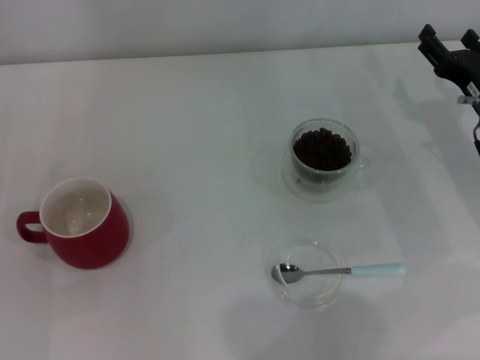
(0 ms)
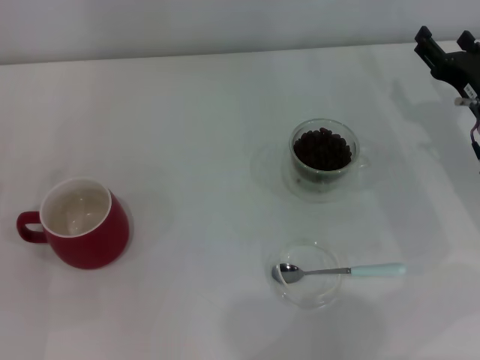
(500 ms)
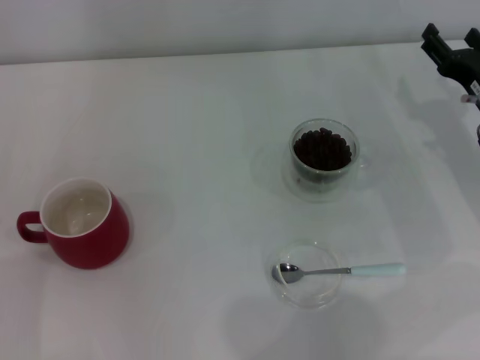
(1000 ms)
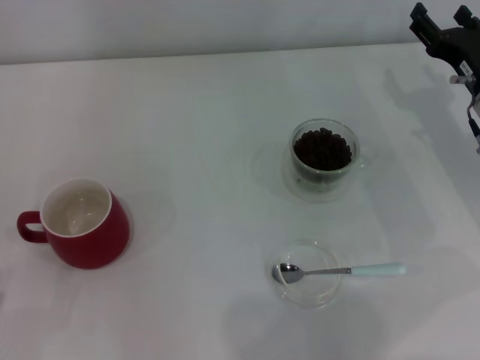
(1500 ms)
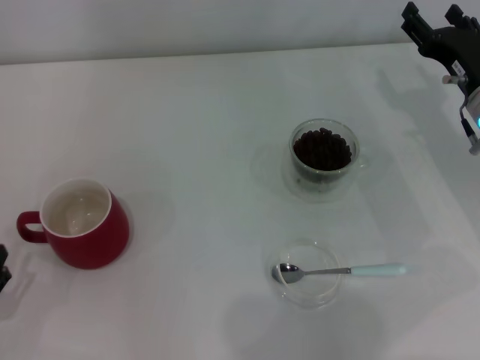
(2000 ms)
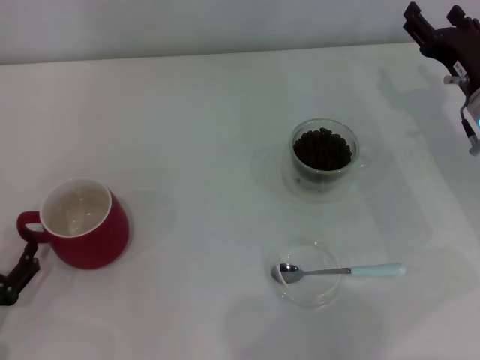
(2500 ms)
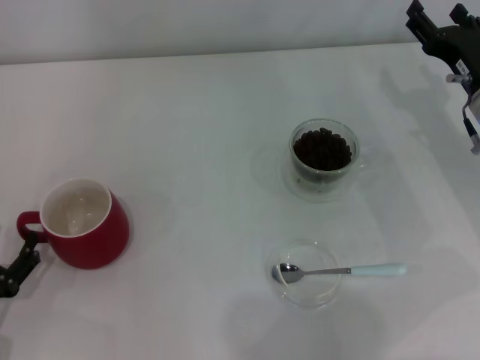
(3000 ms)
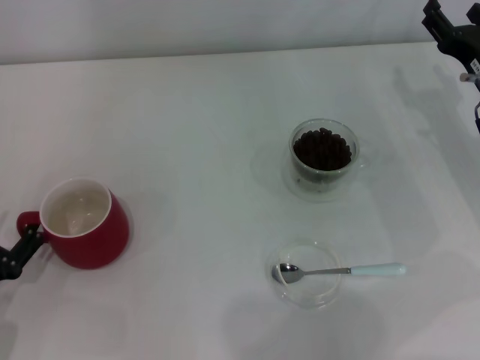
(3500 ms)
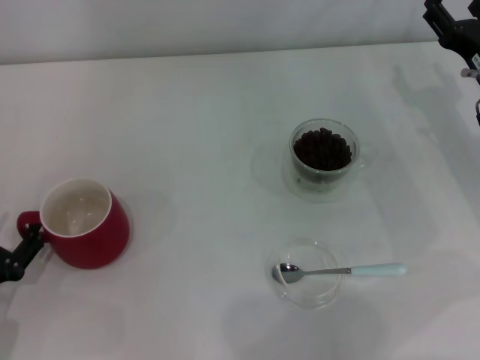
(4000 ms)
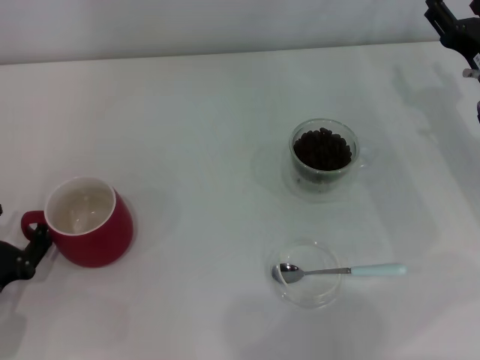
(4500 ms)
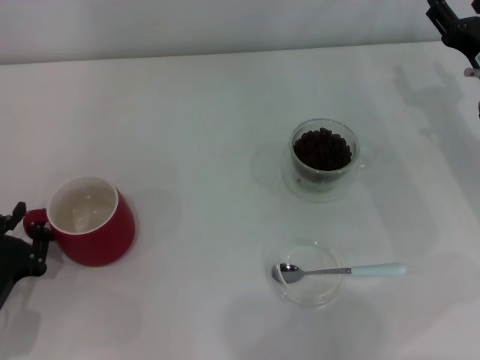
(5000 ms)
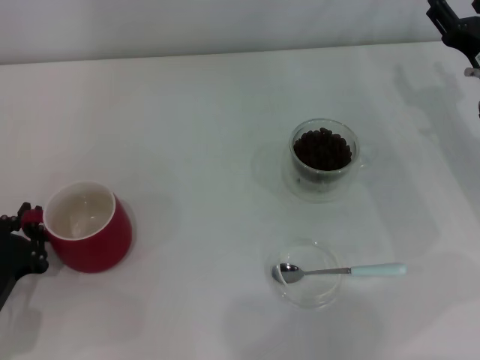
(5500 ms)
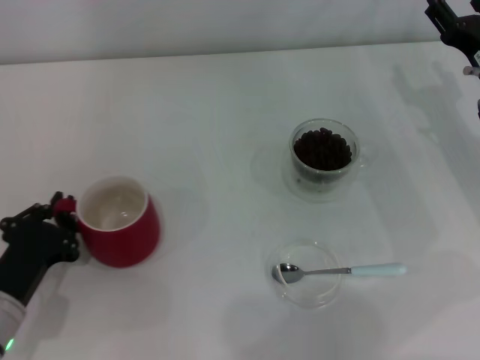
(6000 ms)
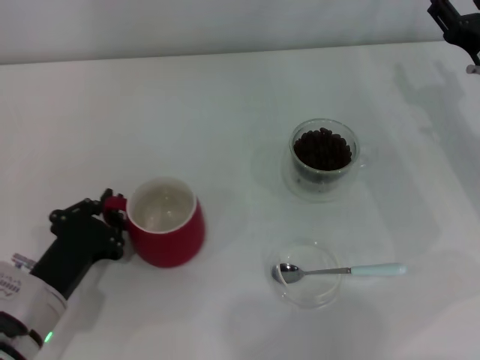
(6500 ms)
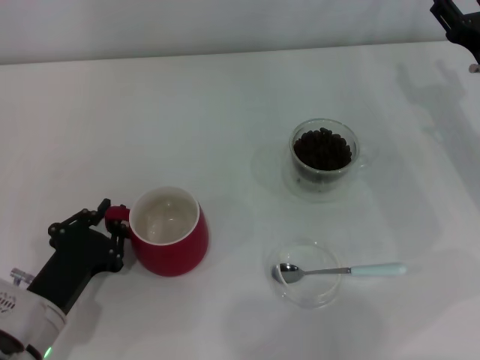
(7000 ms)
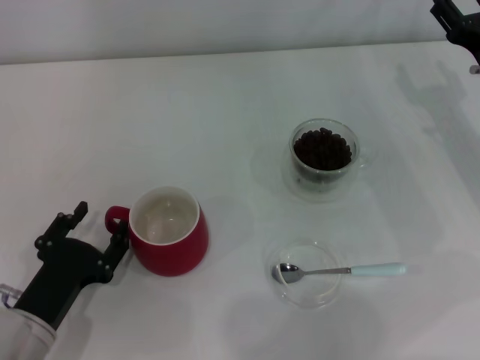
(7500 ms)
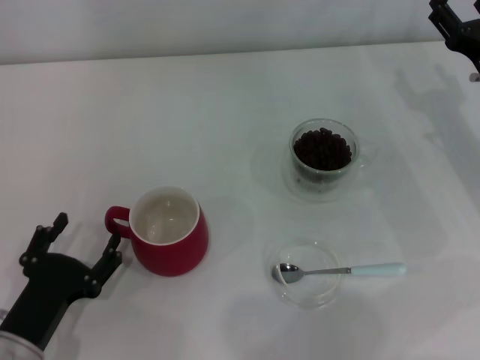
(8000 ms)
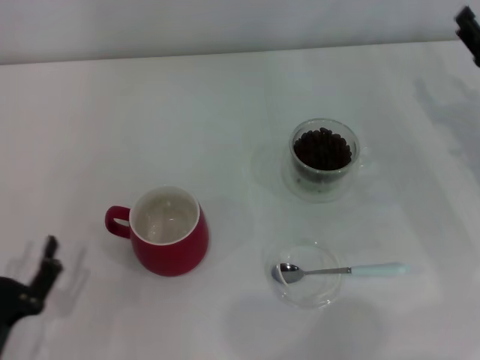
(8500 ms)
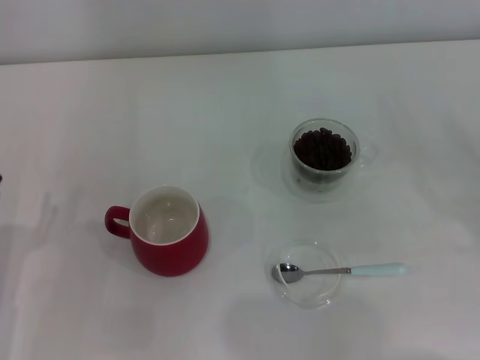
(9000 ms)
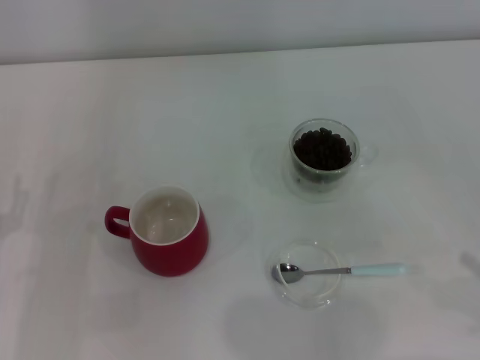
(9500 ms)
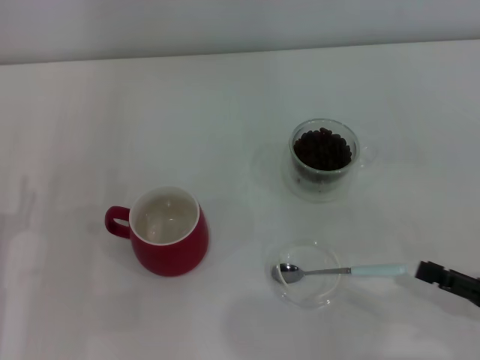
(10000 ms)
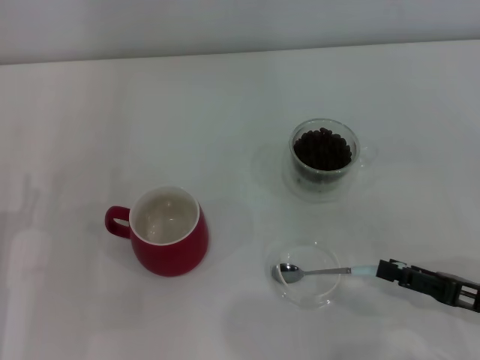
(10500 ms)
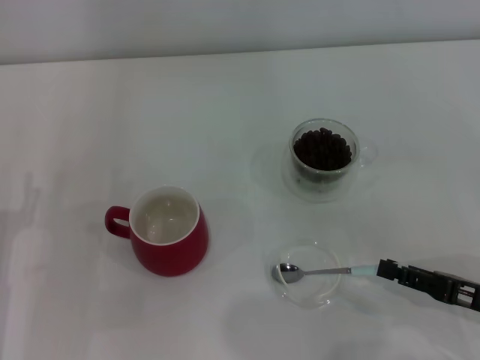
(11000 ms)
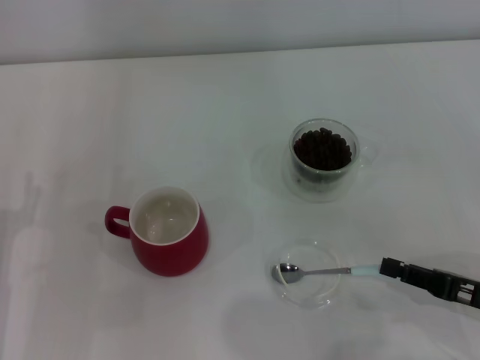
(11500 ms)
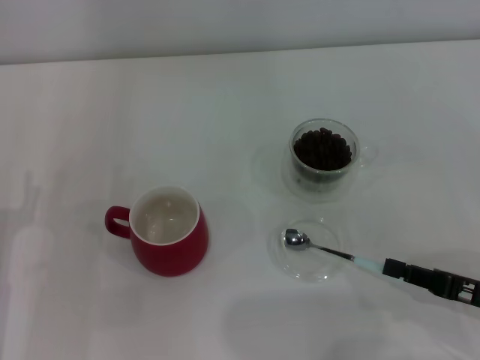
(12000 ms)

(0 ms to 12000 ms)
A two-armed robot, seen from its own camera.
Task of the whole recording: Use a blue spoon to take out the coffee beans from the glass and pour them into the red cup.
Step, 0 ms - 8000 ms: Move the cup to the center of view with the left gripper.
2000 ms - 4000 ms: The left gripper is displaced forward by some 5 cm.
4000 ms - 6000 ms: The left gripper ends up about 5 cm from where it was, and closes its fingers.
6000 ms - 8000 ms: The left gripper opens.
8000 ms - 10000 ms: The left gripper heads to the left, covering some 5 cm. The right gripper travels backward by some 20 cm.
10000 ms - 12000 ms: The right gripper closes.

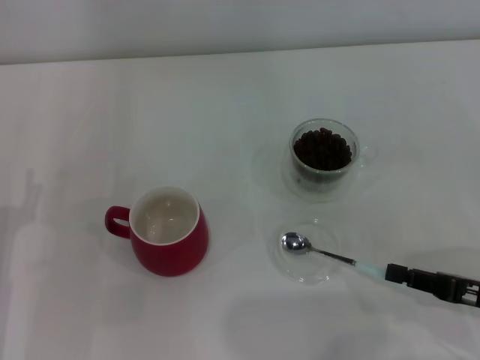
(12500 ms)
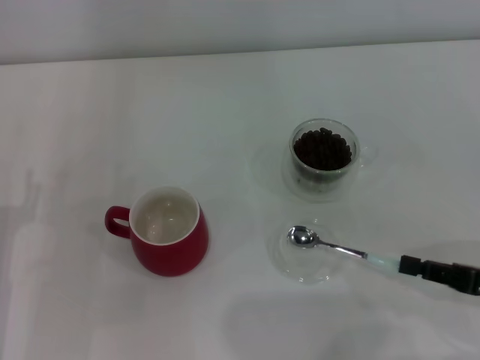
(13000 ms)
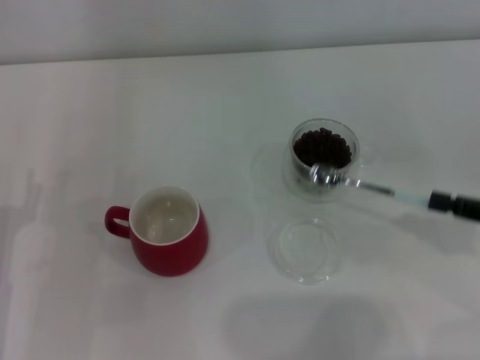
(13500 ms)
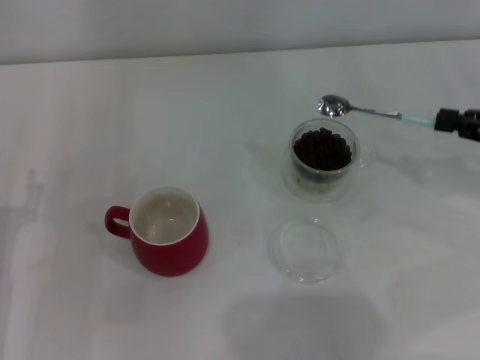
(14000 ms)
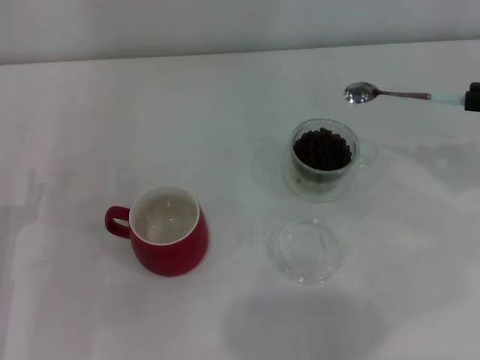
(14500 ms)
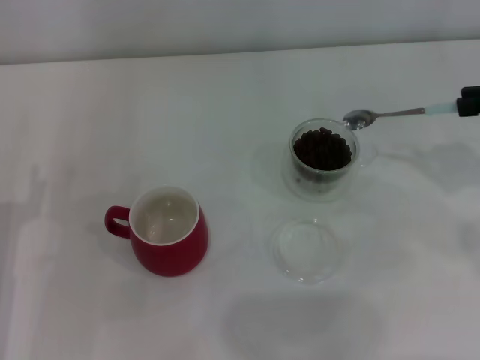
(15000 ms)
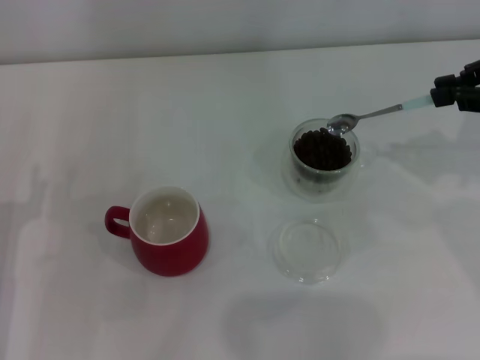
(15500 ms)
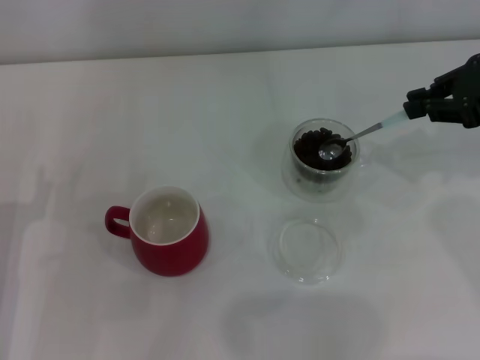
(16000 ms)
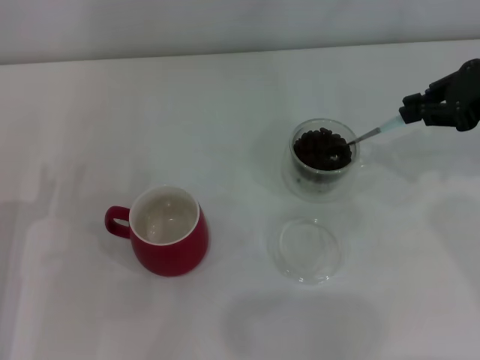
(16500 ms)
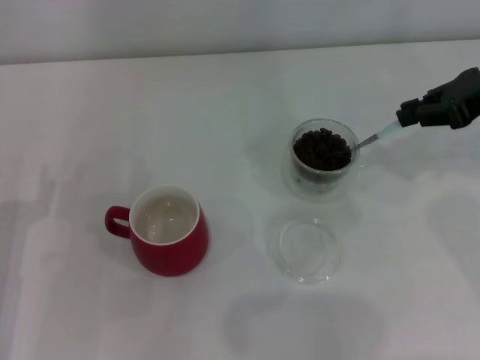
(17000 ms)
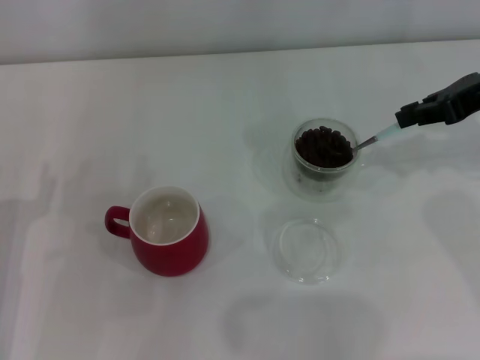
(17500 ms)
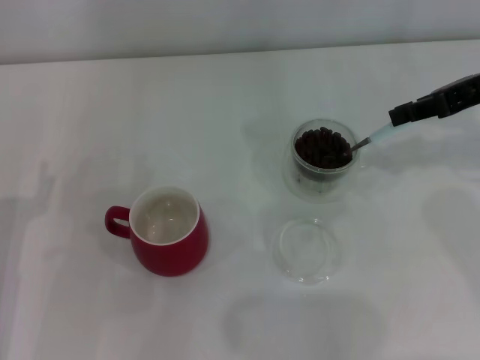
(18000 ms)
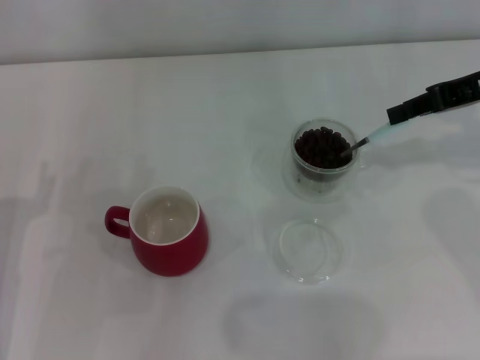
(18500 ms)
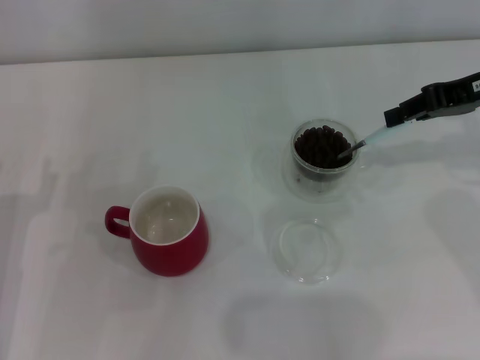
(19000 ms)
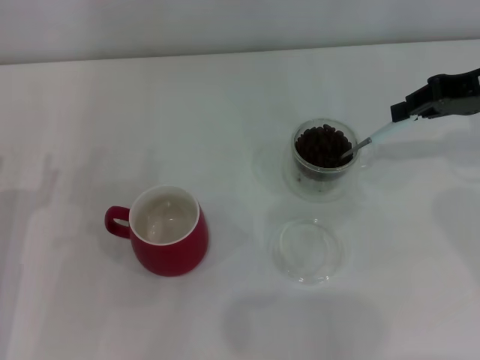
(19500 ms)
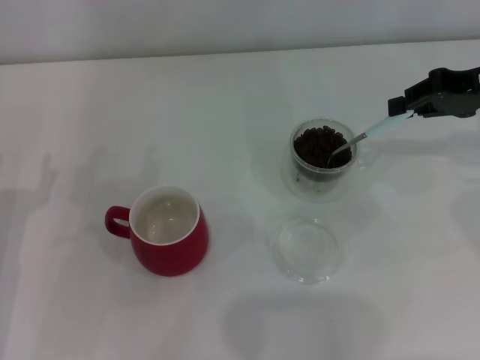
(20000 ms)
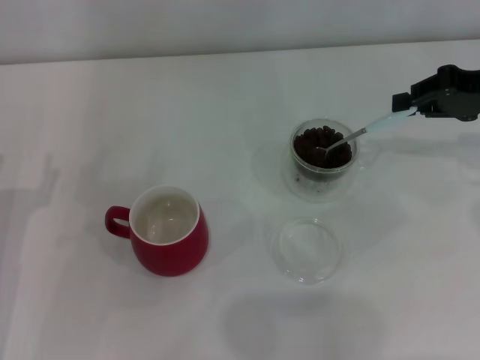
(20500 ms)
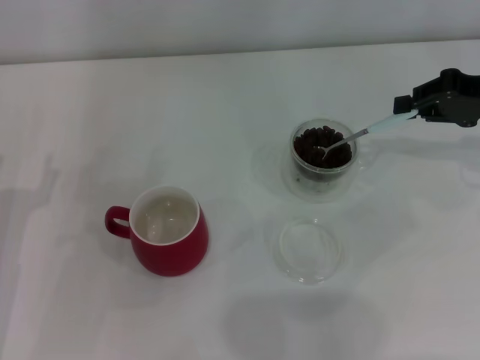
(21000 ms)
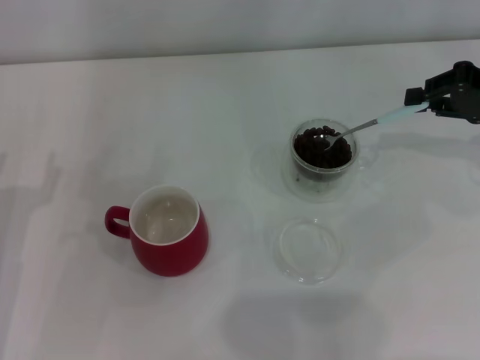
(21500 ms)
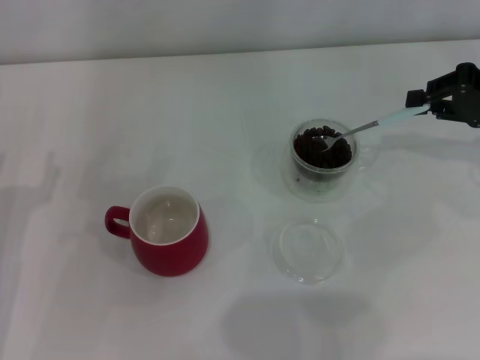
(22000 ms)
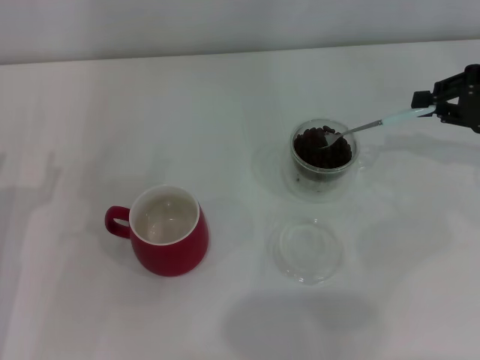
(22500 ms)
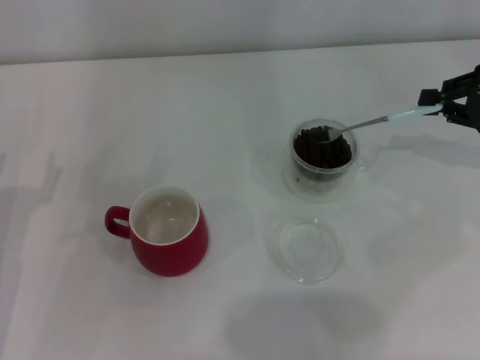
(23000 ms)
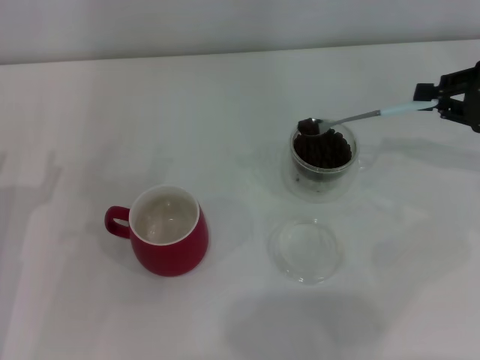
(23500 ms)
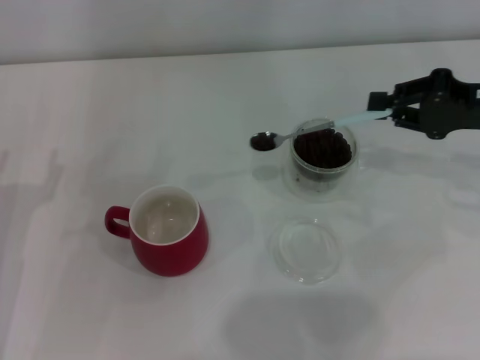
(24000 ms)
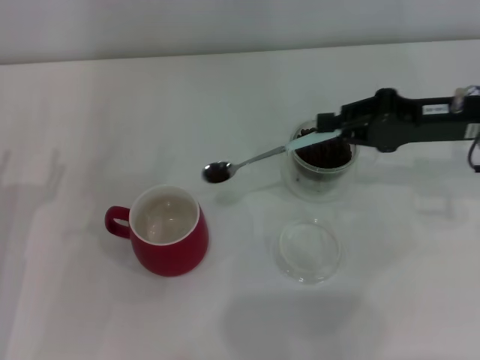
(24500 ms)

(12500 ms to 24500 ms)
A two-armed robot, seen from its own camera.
Task of the whole recording: Use a blue spoon to take out the coffee beans from the glass and pour them into the red cup.
12500 ms - 14500 ms: The right gripper is displaced upward and forward by roughly 20 cm.
14500 ms - 16500 ms: The right gripper shifts roughly 10 cm forward and to the left.
20500 ms - 22500 ms: The grippers make only small movements.
22500 ms - 24500 ms: The right gripper travels to the left by some 10 cm.

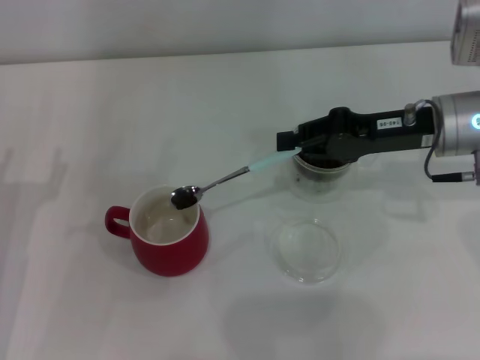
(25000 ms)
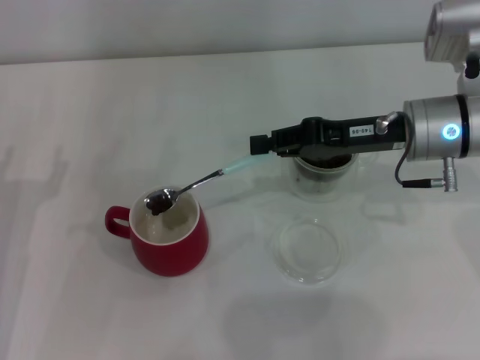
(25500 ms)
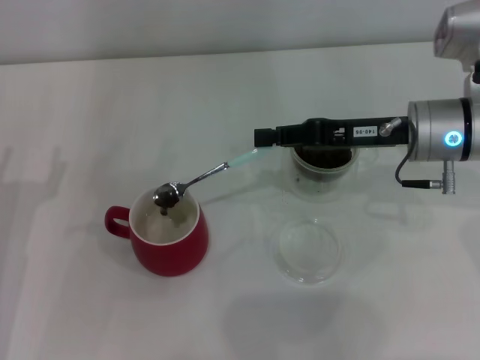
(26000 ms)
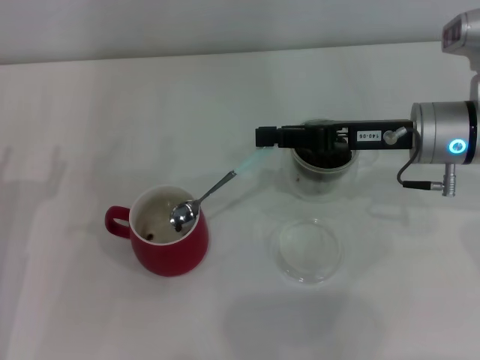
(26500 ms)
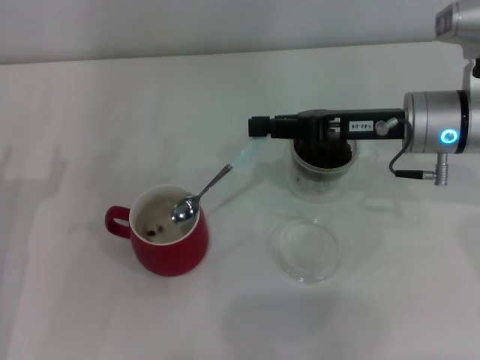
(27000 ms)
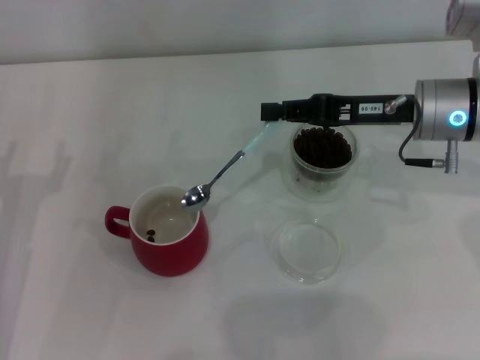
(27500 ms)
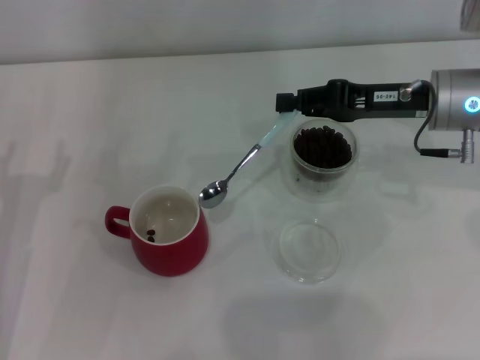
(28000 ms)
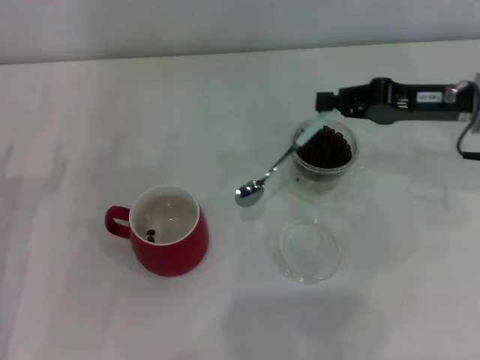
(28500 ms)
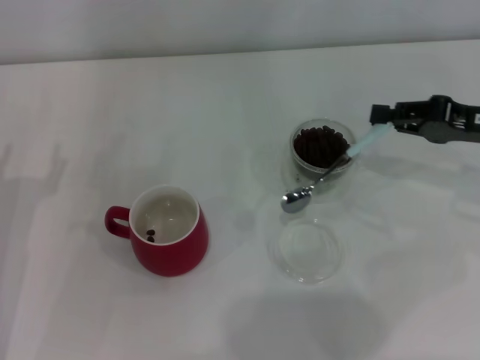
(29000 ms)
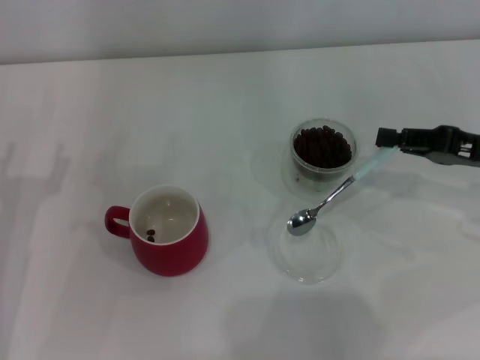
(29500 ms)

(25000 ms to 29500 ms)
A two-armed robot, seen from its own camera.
Task of the whole recording: Use a blue spoon to take out the coffee beans from the glass and pour them into the red cup.
Step, 25000 ms - 27500 ms: Scoop a spoonful of beans into the cup with the right gripper.
27000 ms - 29500 ms: The right gripper heads to the right and backward, covering approximately 15 cm.
